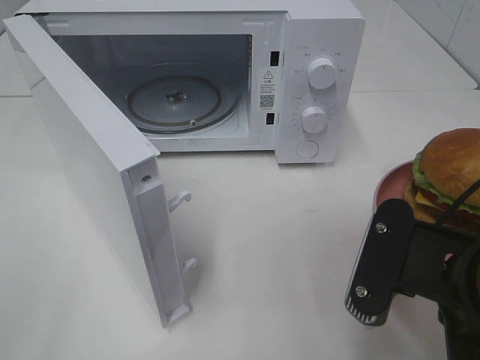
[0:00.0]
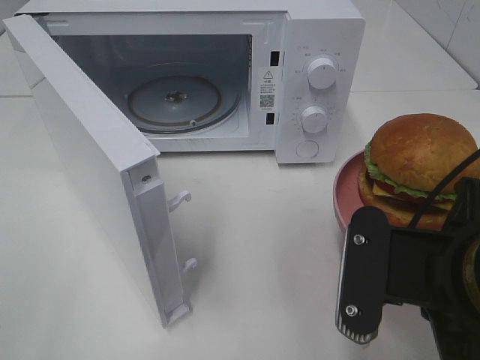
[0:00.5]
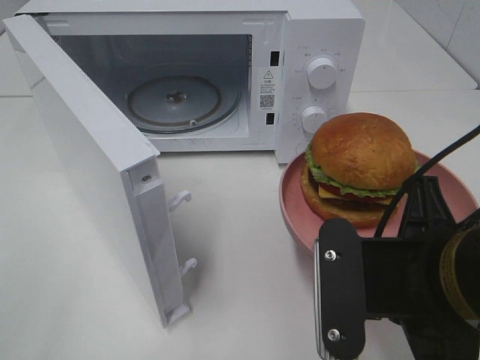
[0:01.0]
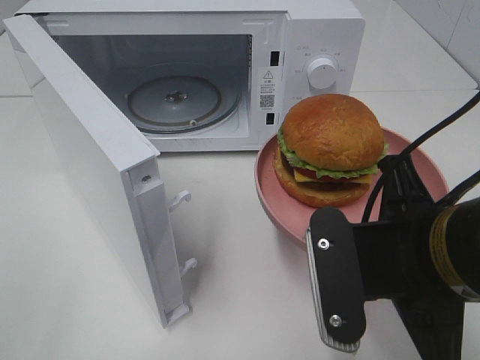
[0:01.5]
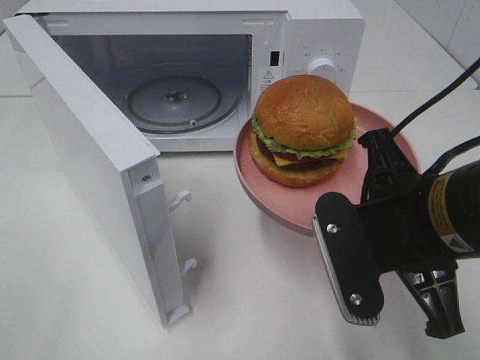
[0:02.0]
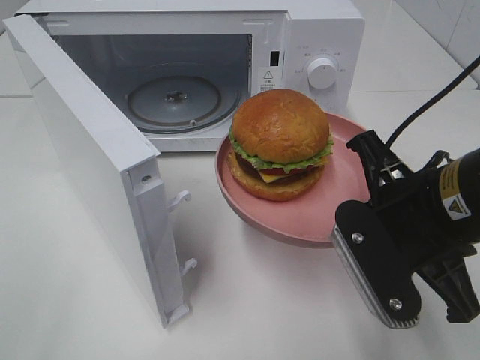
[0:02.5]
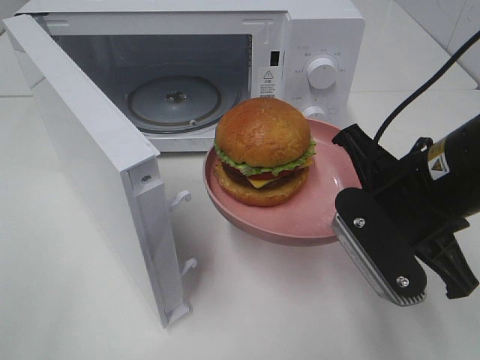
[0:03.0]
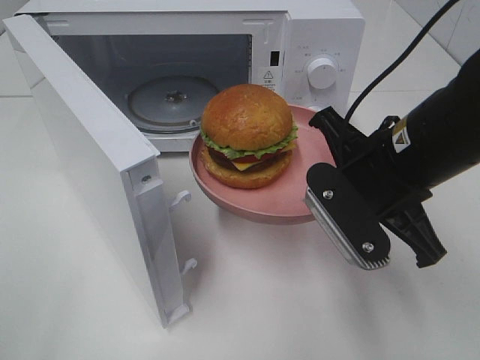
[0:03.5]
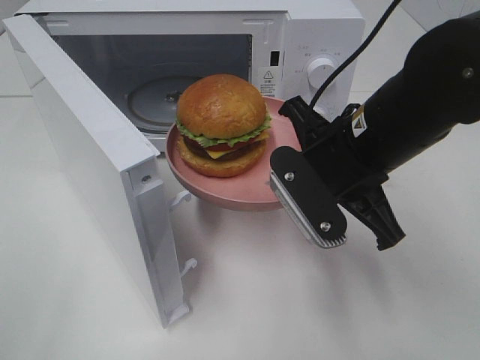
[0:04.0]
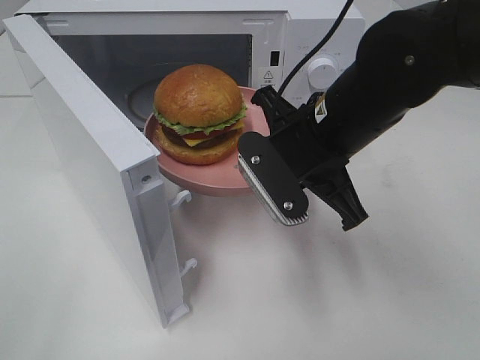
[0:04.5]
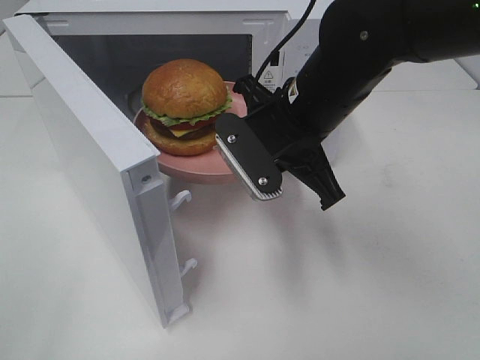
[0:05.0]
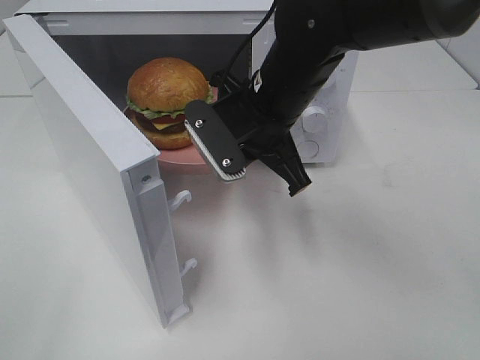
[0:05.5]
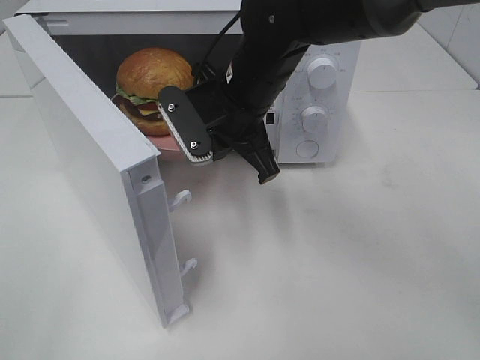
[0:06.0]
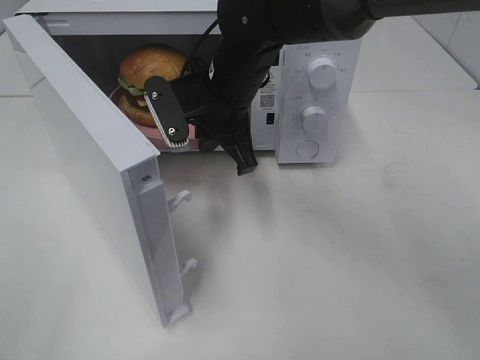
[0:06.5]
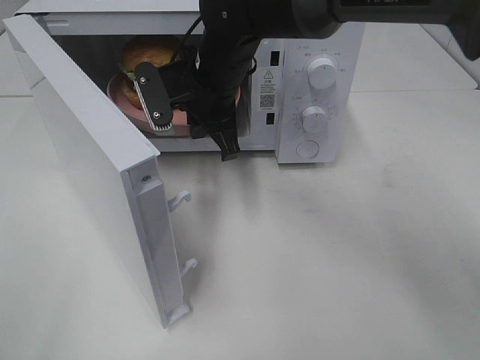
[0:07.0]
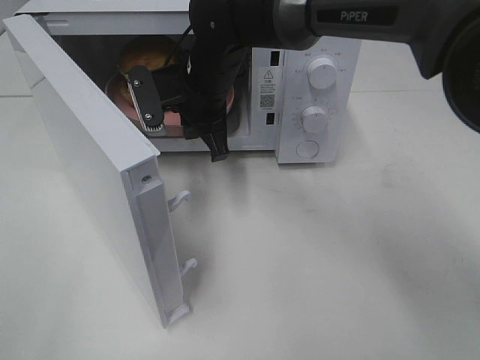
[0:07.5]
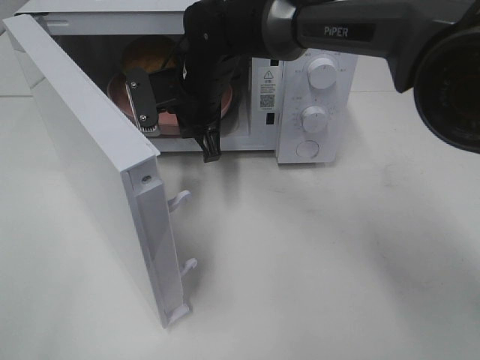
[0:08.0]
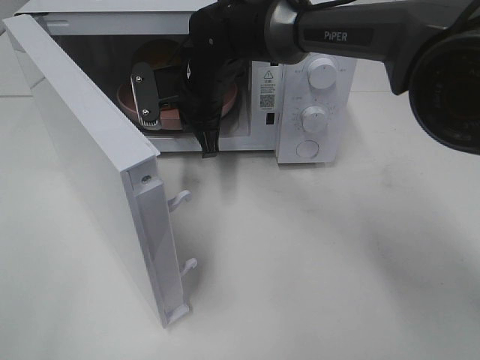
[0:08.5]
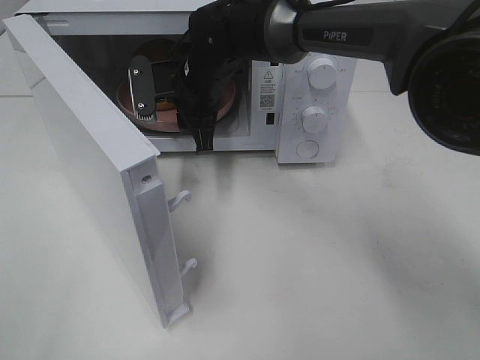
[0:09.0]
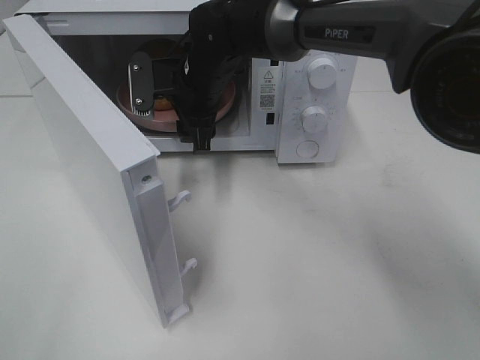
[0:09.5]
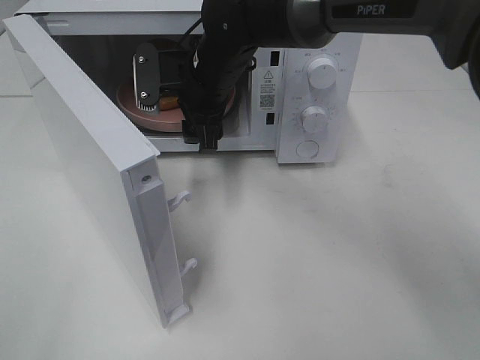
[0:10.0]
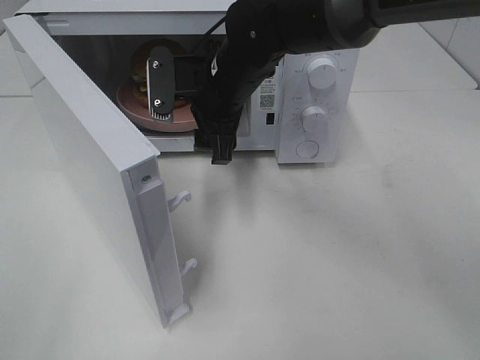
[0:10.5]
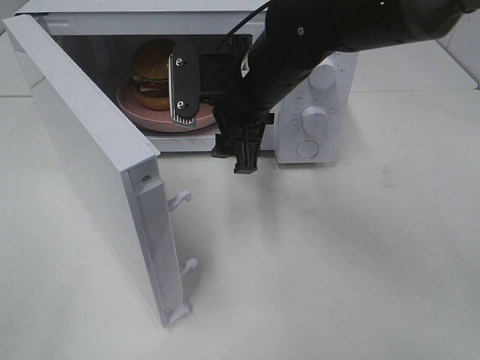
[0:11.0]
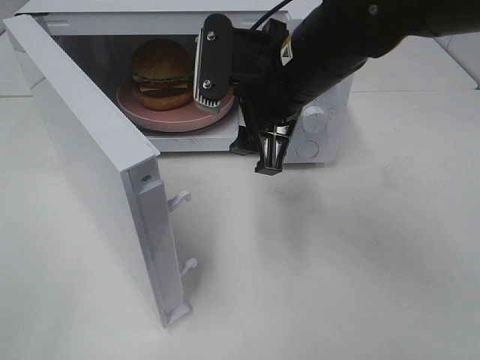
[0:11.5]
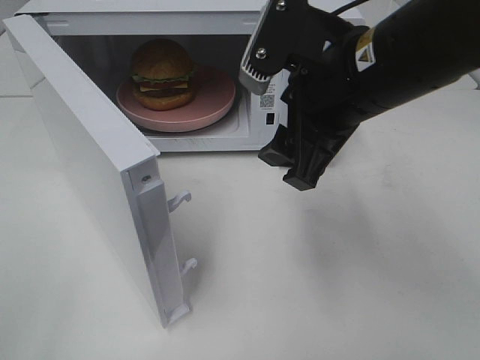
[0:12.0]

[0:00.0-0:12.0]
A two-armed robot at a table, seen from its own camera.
Task of the whole recording: Heat the burger.
Step, 0:00.0 to 0:08.5: Right hand: place the plate in the microwave.
0:00.0 to 0:02.0: The right gripper shifts some 5 cm forward.
0:02.0 to 0:04.0: The right gripper travels forward by approximately 10 cm.
0:04.0 to 0:06.0: The right gripper is displaced forward and to the left by some 15 cm.
0:06.0 to 0:08.0: The right gripper shifts roughly 5 cm forward.
0:08.0 to 0:10.0: The right gripper opens its fingers.
0:10.0 to 0:12.0: The right gripper travels backward, to the right and upward by roughly 20 cm.

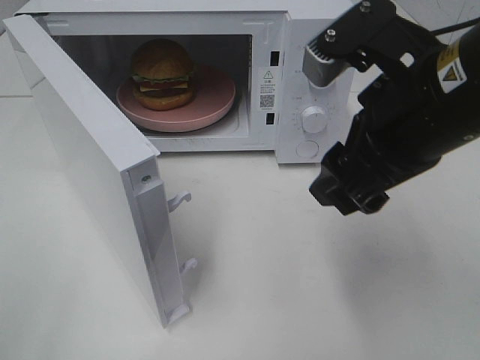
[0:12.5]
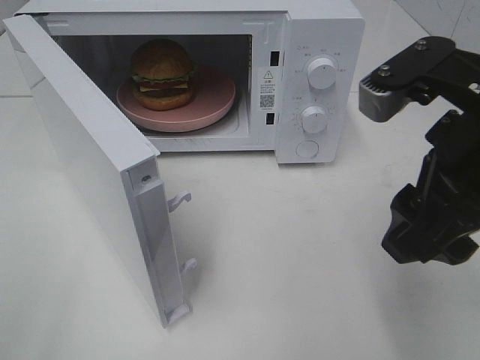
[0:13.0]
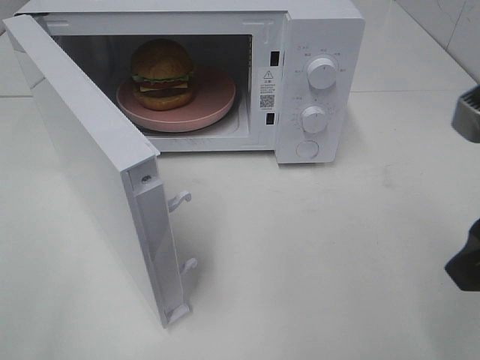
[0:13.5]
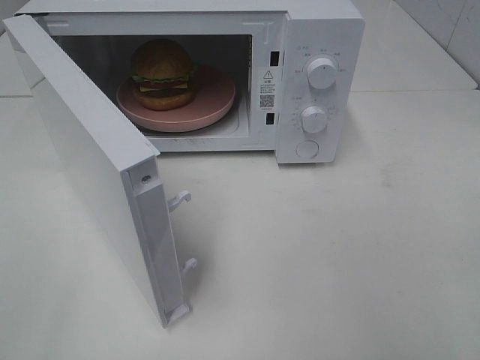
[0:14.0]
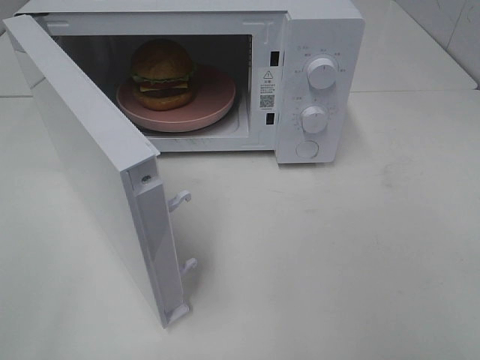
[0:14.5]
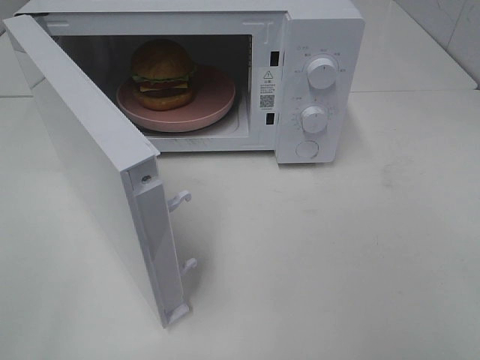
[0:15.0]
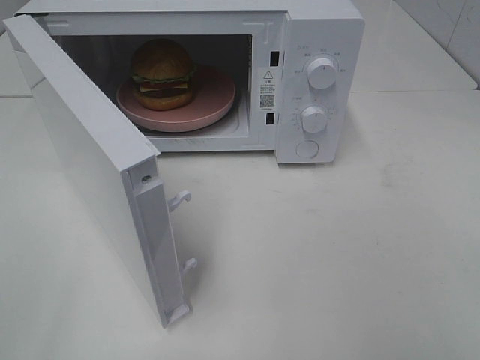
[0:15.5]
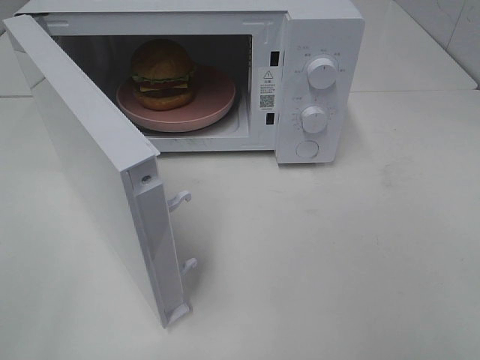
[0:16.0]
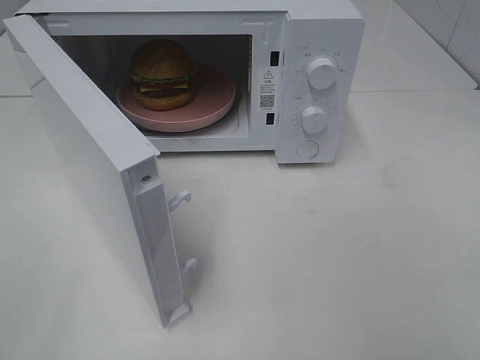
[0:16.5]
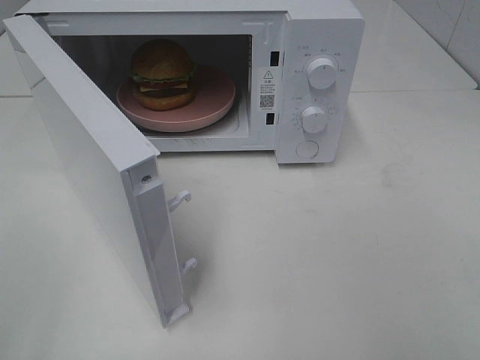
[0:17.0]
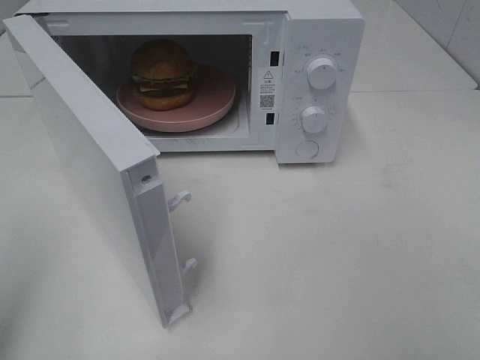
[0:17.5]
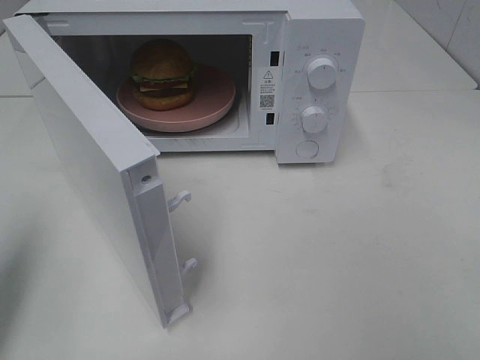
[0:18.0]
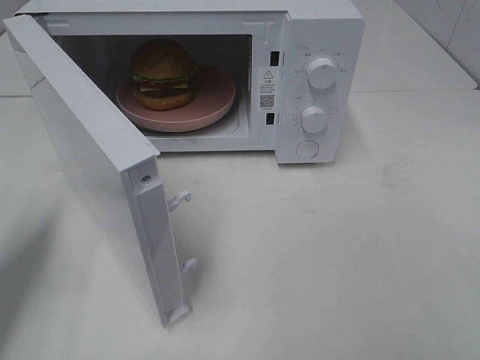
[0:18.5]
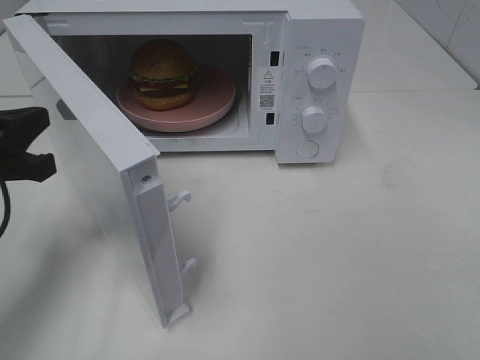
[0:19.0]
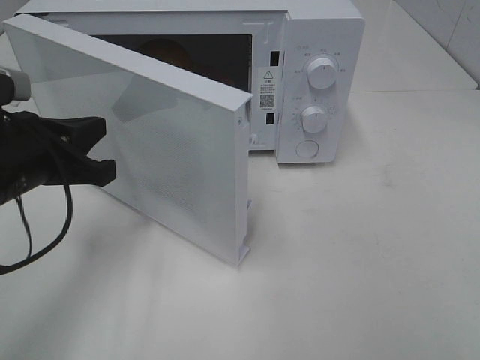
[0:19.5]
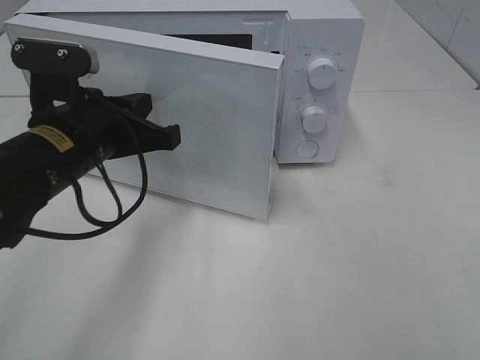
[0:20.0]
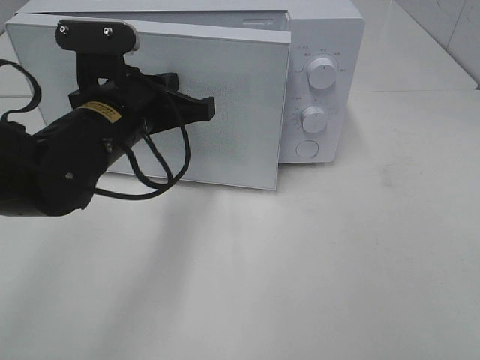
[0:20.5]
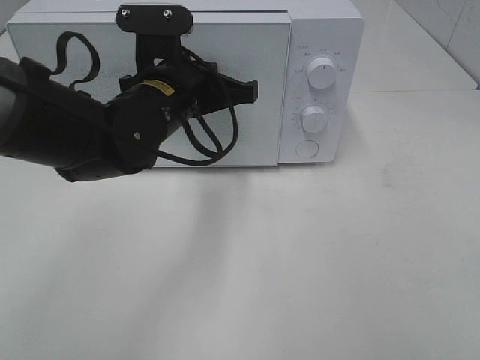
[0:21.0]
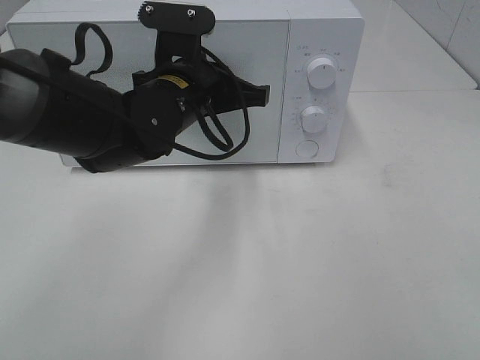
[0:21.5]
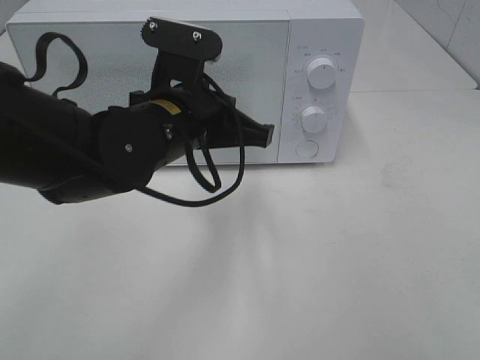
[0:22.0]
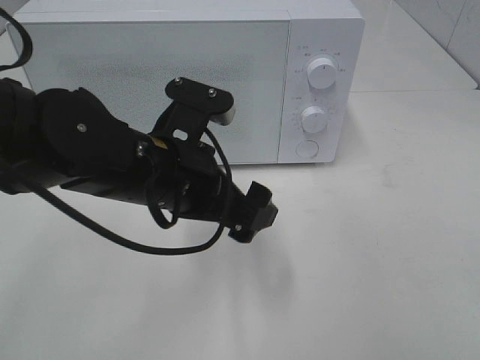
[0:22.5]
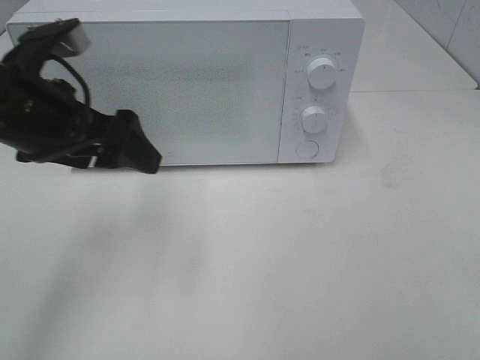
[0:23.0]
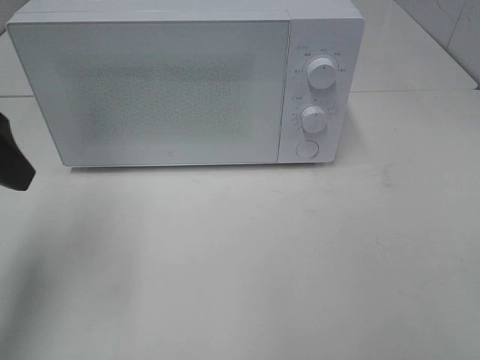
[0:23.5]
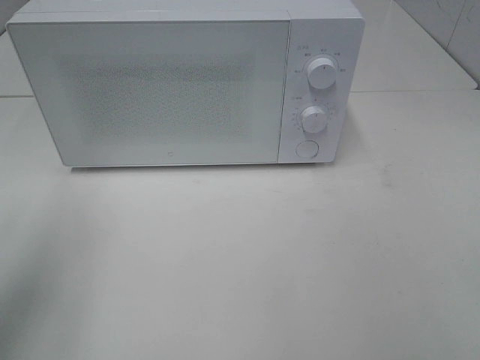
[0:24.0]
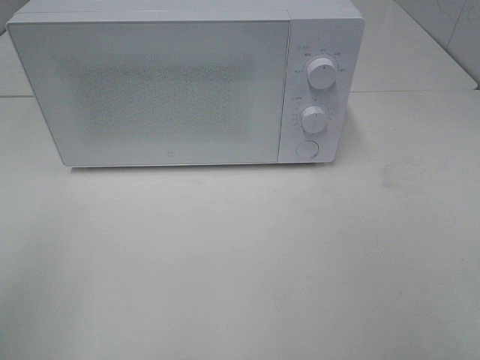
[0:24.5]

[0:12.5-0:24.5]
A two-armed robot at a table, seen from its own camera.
Task of the whole recording: Heat the burger.
Step, 0:12.5 to 0:21.5: Left hand: close the microwave door.
0:12.5 to 0:14.5: The right gripper goes about 25 cm backward and to the right.
0:16.5 to 0:18.5: The left gripper is displaced forward by about 20 cm, and closes up.
0:18.5 to 0:20.5: The left gripper travels to the right and forward by some 20 cm.
0:20.5 to 0:22.5: The left gripper travels backward by some 5 cm, and opens its fingers.
0:22.5 to 0:24.5: The left gripper shifts approximately 30 cm to the left and backward.

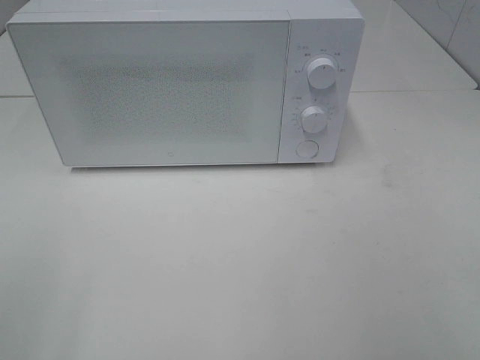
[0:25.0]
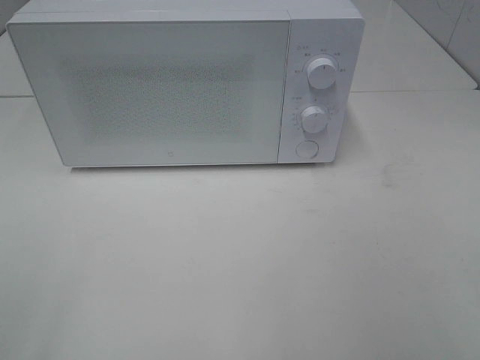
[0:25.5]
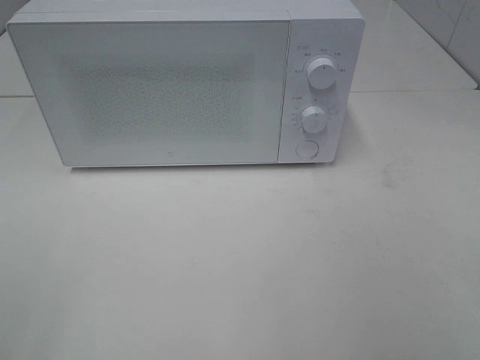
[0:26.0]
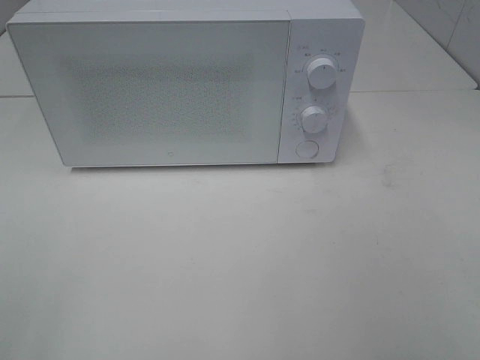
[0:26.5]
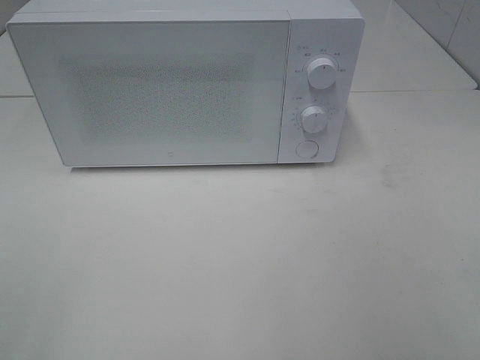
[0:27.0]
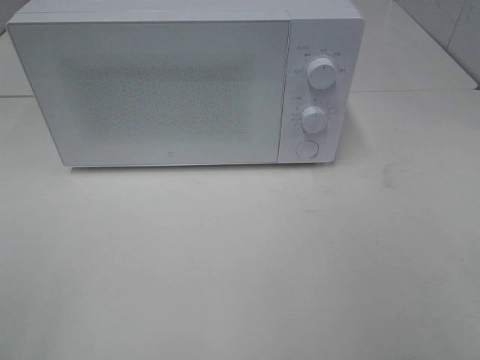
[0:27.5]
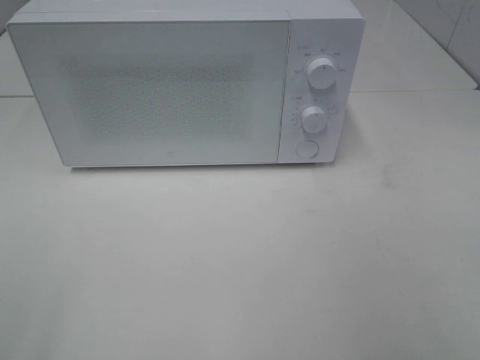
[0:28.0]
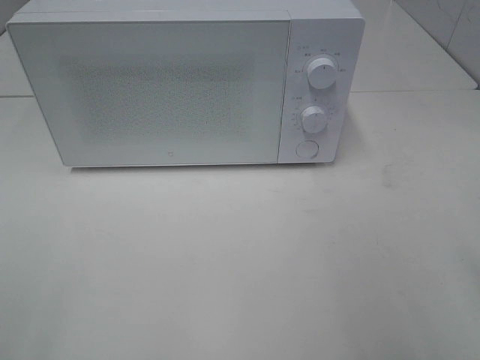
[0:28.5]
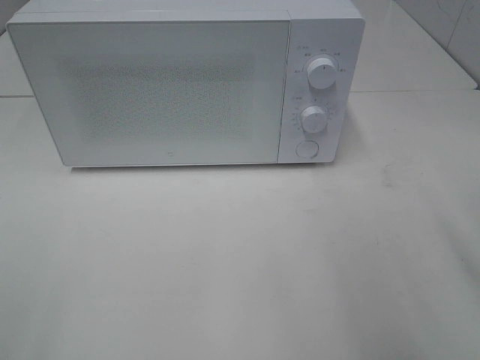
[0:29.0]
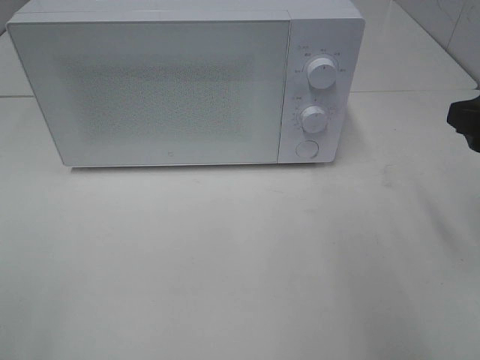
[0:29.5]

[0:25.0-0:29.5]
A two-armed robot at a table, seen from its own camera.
Task of the whole recording: Heat the burger.
0:27.0 to 0:29.5: The right gripper is displaced forward by some 20 cm.
